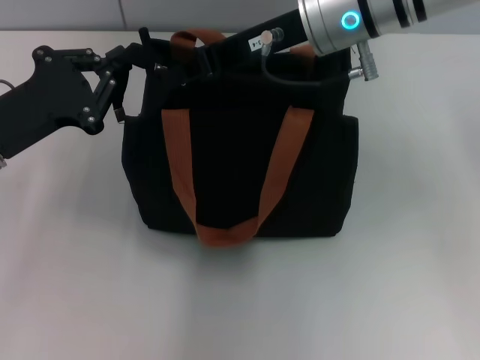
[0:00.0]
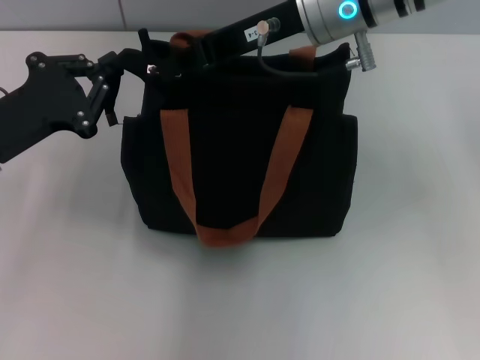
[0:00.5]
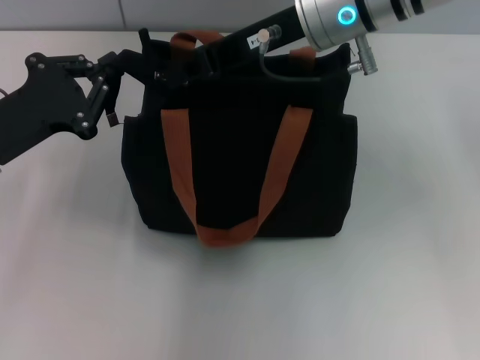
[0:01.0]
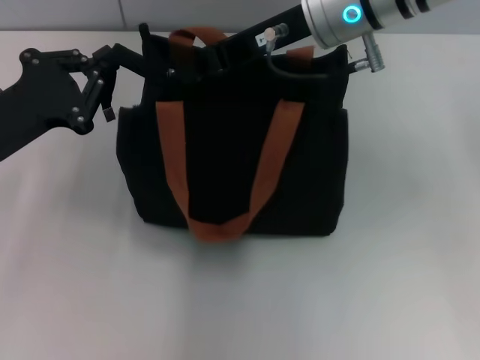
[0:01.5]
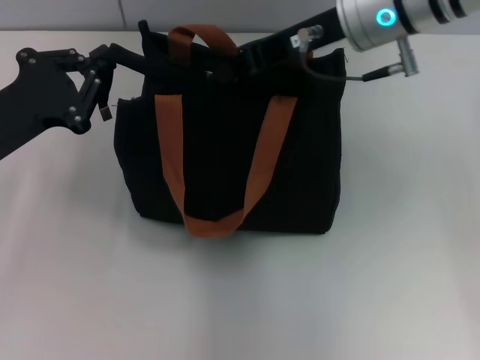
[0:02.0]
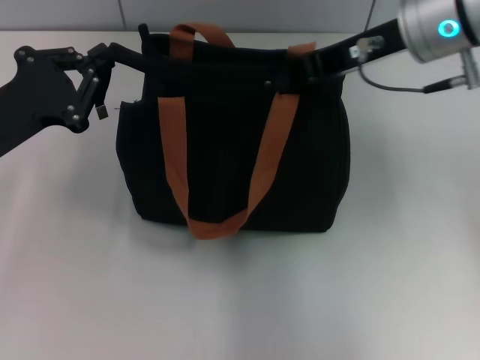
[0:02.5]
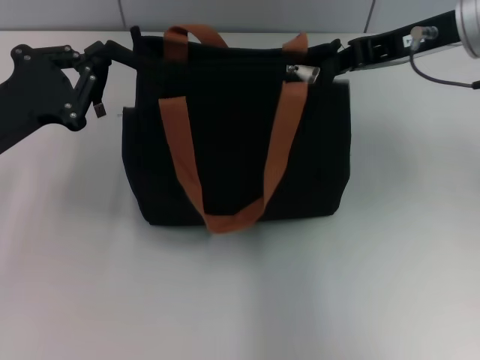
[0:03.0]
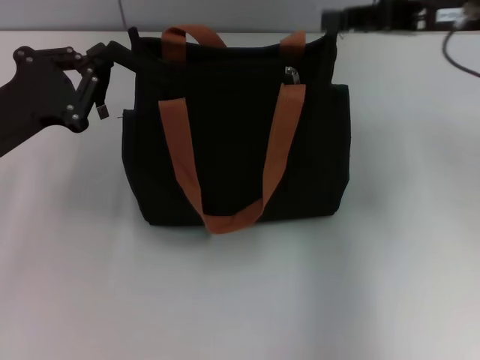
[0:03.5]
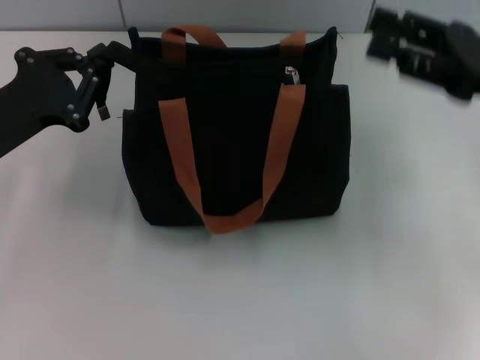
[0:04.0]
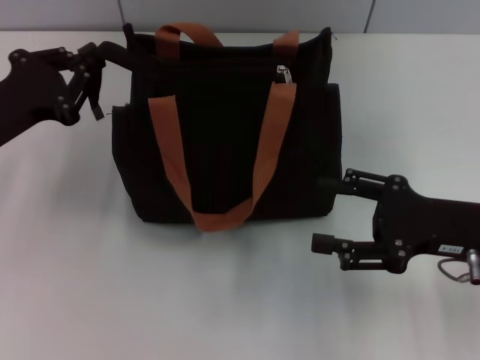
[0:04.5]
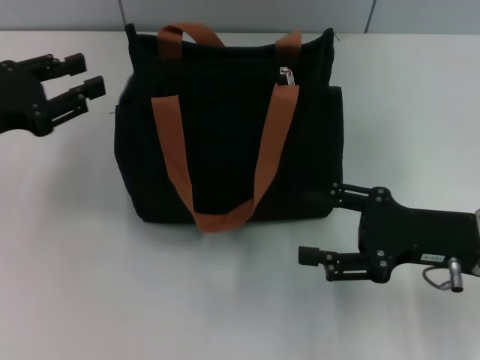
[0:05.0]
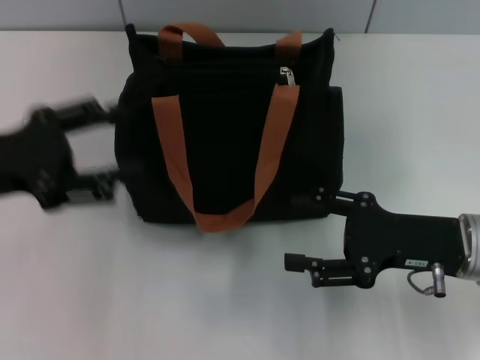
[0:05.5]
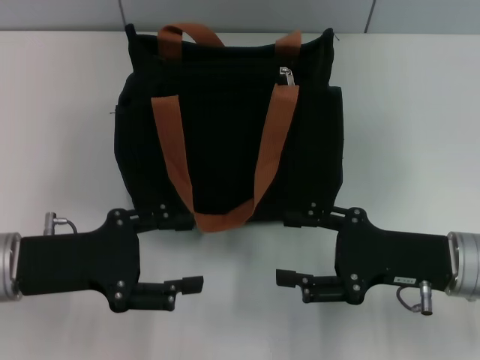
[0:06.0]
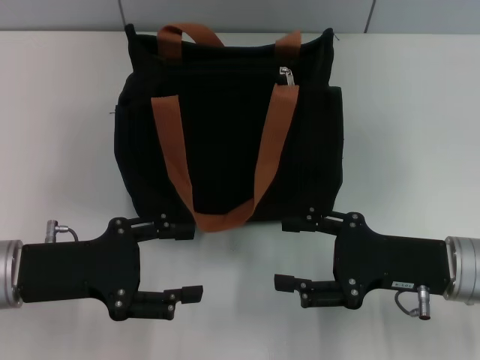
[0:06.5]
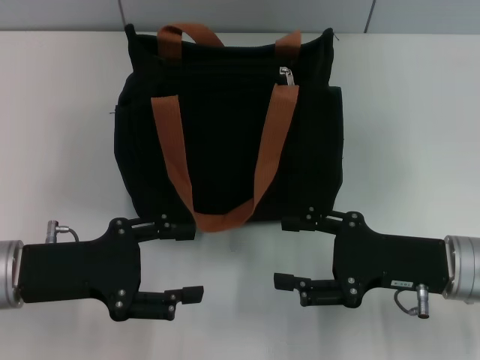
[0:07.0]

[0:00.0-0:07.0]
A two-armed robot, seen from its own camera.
Step, 0:00.0 to 0:02.5: Pull up the zipper with your right hand.
0:00.0 to 0:02.0: The grippers stay close to where they were, moving slightly.
0:02.0 to 0:03.5: The right gripper heads to the right, covering roughly 15 cm.
0:03.5 to 0:05.0: The right gripper shifts roughly 20 cm downward and backward, and opens up.
0:05.0 to 0:07.0: The left gripper goes roughly 10 cm backward, to the right and downward, and opens its fingers.

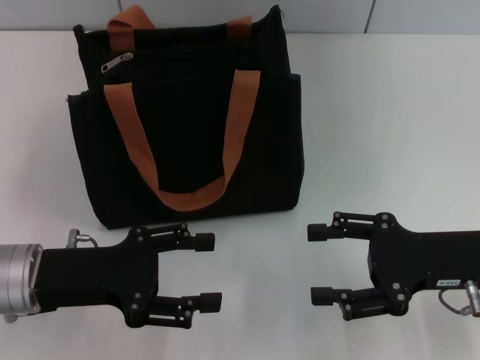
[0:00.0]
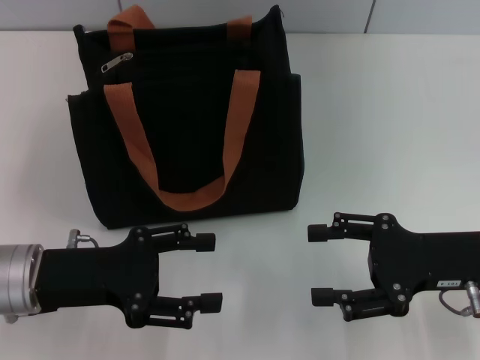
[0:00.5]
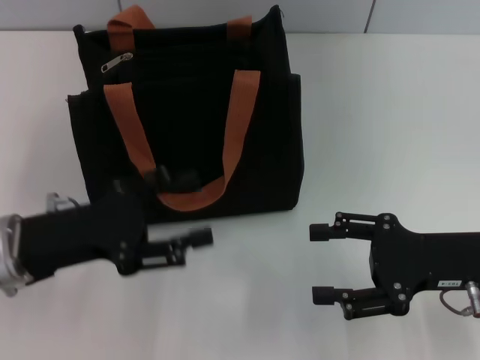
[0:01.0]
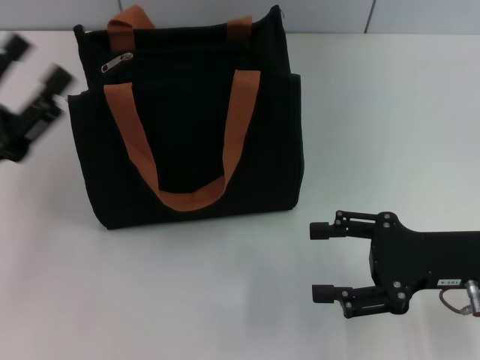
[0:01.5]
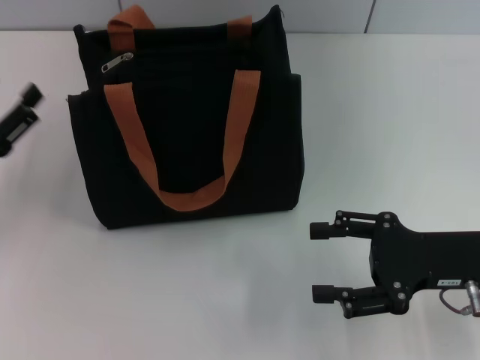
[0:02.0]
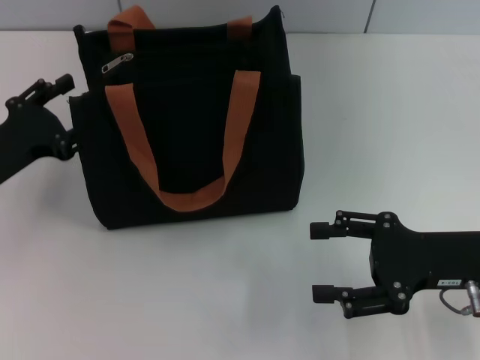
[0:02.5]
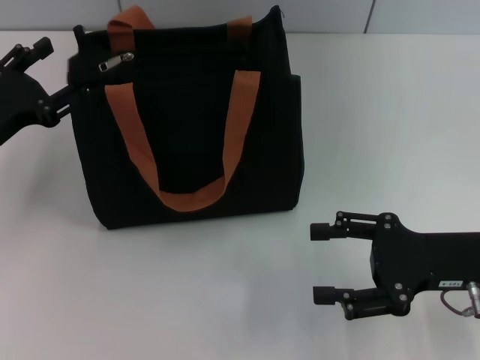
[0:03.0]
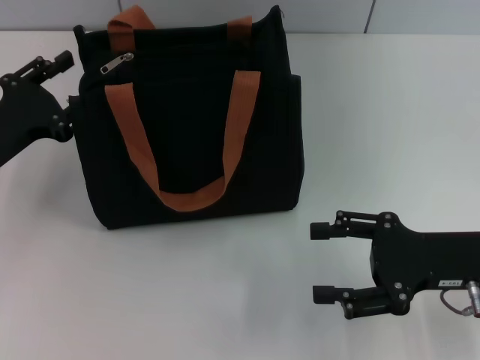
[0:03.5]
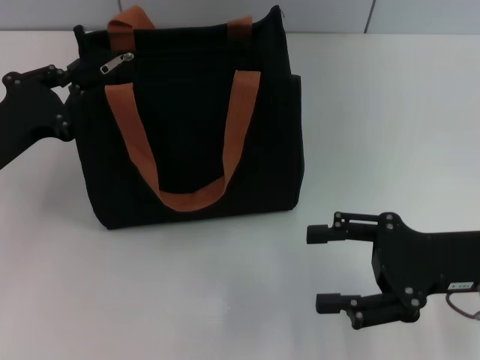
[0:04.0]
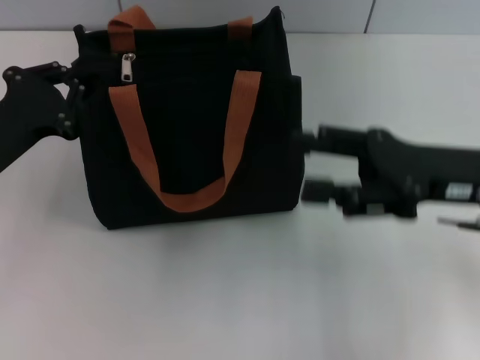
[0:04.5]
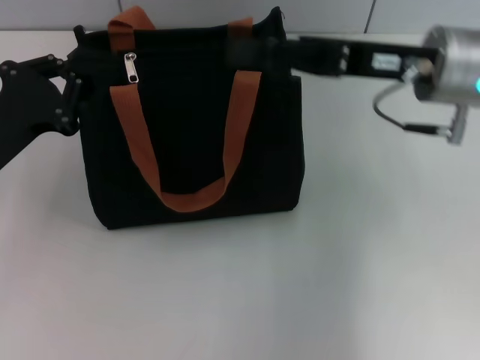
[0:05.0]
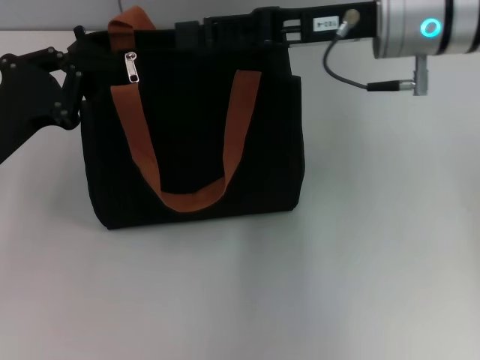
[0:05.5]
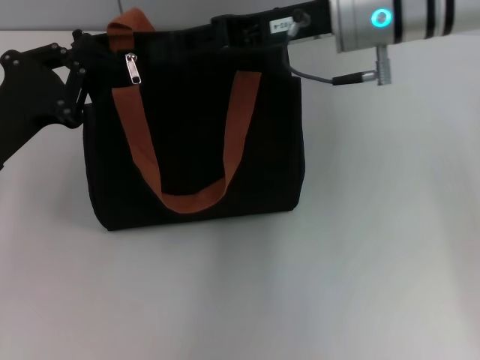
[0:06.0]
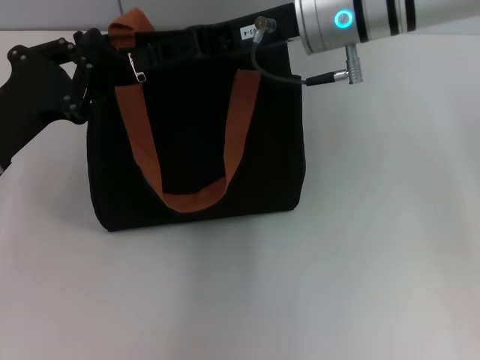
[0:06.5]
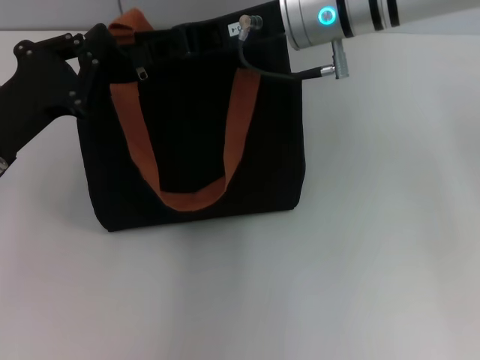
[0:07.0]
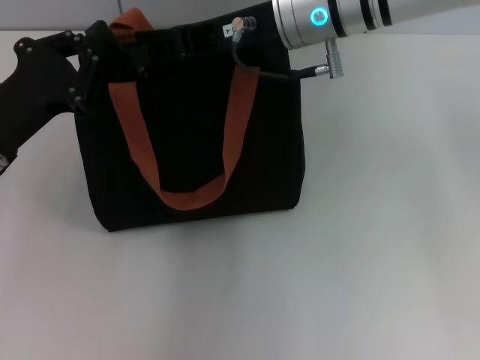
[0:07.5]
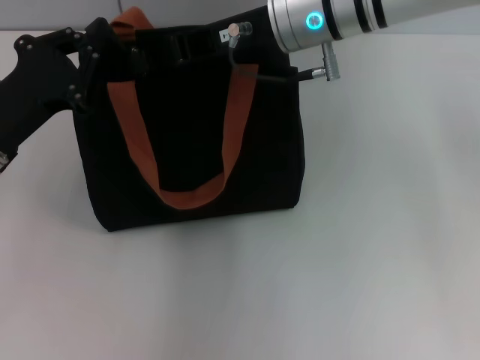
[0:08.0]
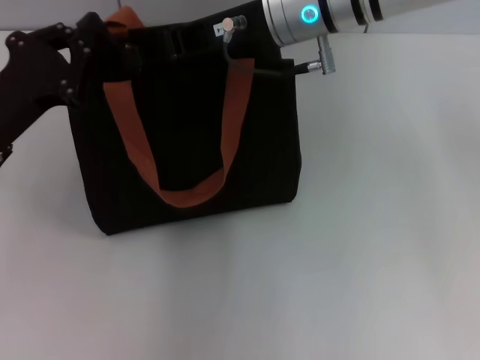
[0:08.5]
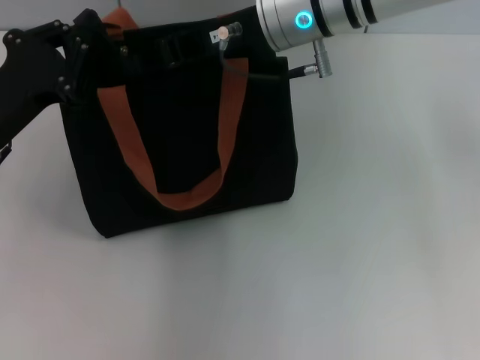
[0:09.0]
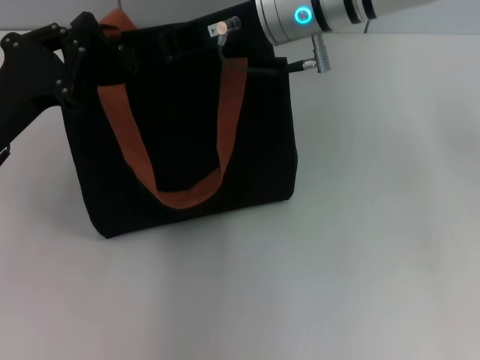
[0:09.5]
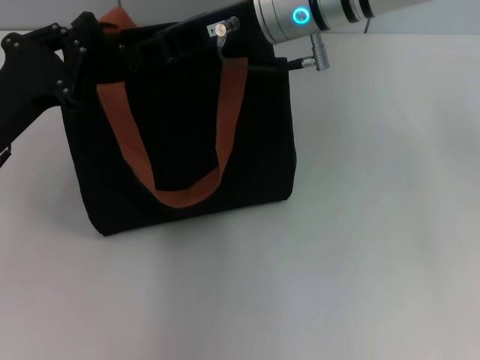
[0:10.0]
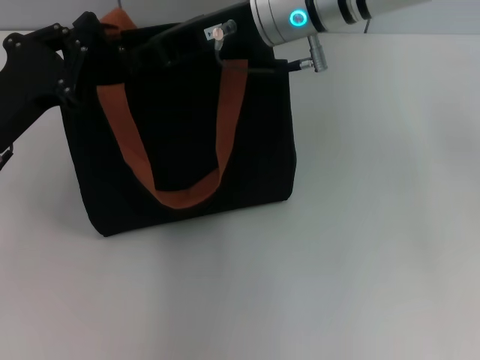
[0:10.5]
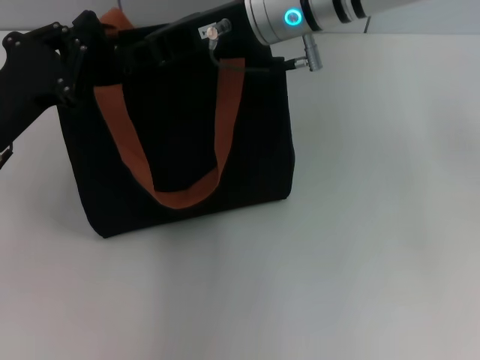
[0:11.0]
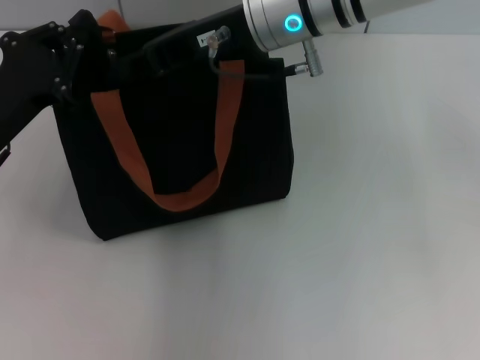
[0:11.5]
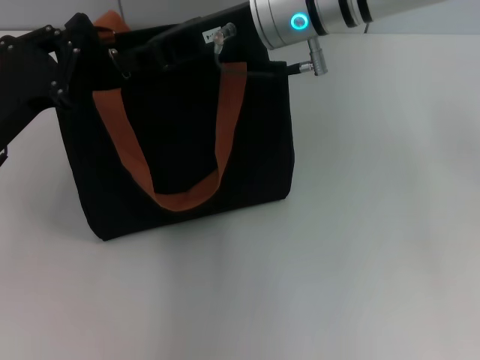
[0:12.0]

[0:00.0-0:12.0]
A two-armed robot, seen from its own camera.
0:00.0 to 0:02.0: The left gripper goes some 10 cm to the left.
0:02.0 to 0:04.0: The left gripper moves roughly 5 cm, and closes.
0:04.0 to 0:06.0: The right gripper moves forward, to the left and upward, some 25 cm.
0:06.0 to 0:10.0: The grippers make only small movements.
0:10.0 to 0:12.0: The two grippers keep their place.

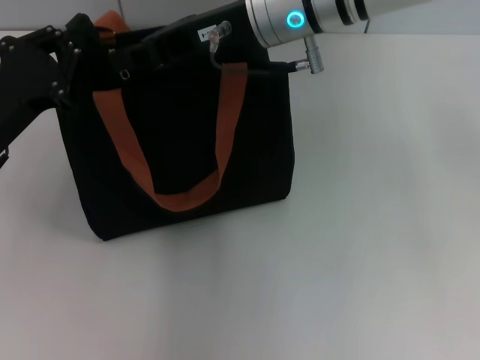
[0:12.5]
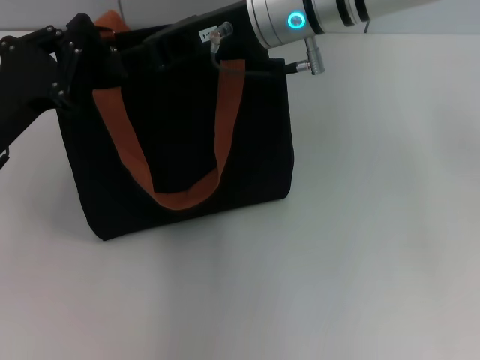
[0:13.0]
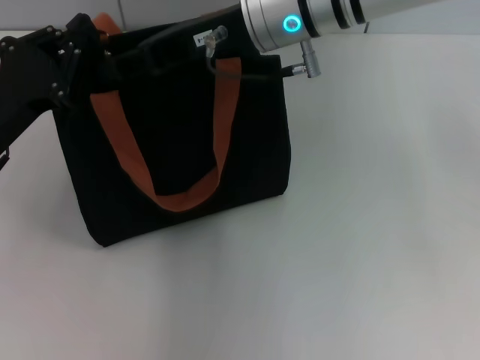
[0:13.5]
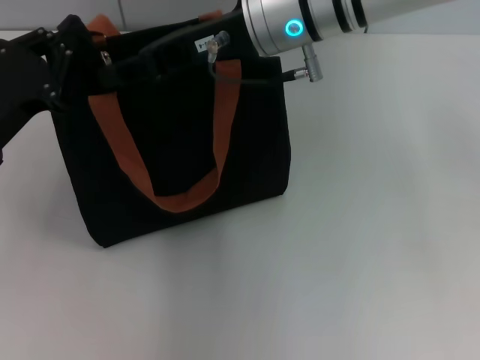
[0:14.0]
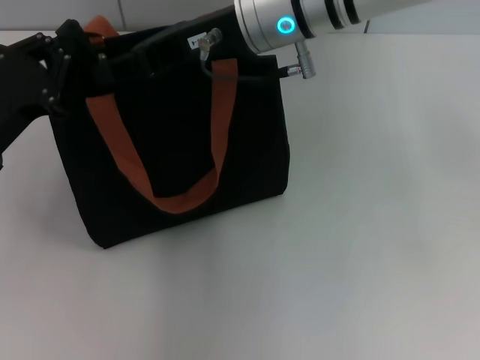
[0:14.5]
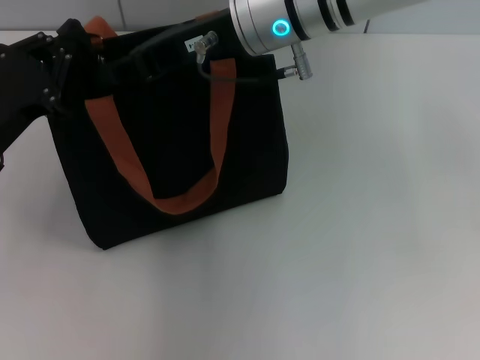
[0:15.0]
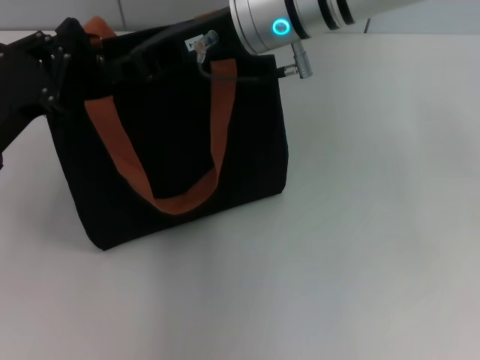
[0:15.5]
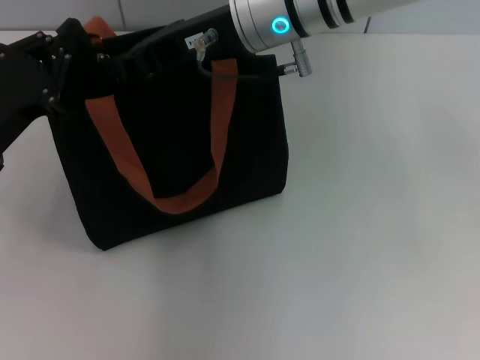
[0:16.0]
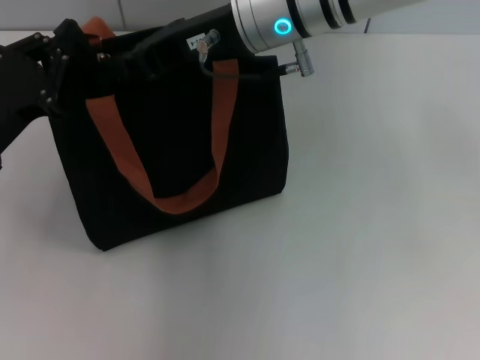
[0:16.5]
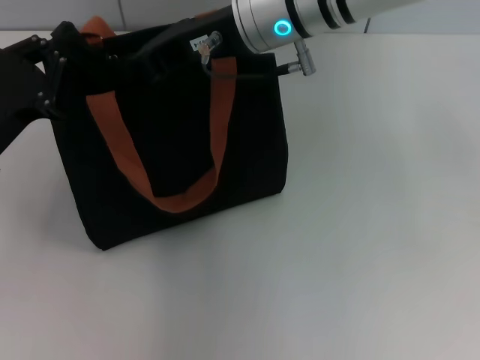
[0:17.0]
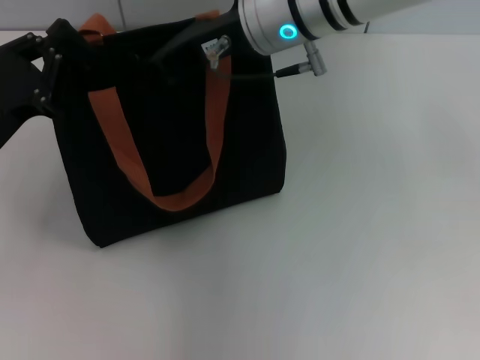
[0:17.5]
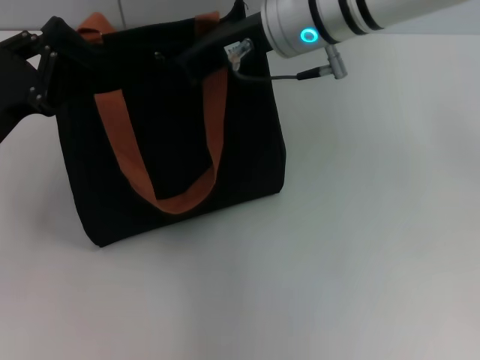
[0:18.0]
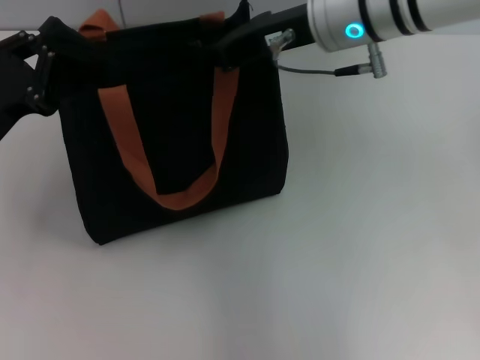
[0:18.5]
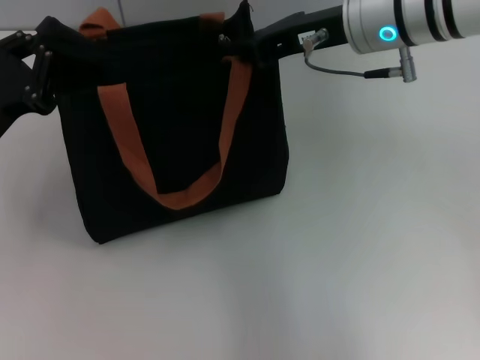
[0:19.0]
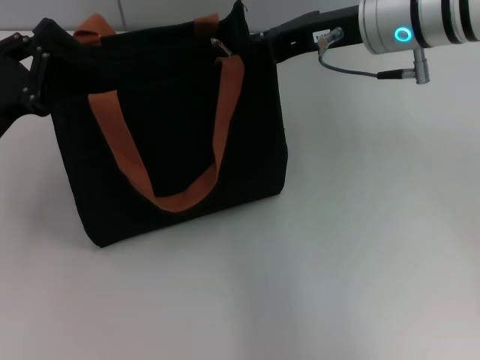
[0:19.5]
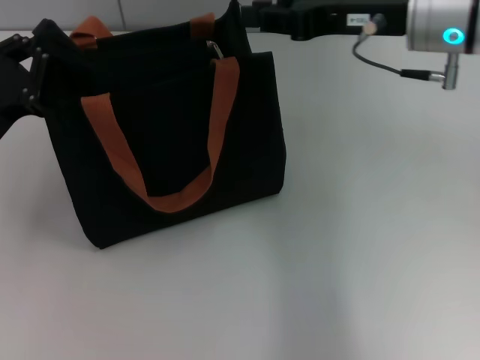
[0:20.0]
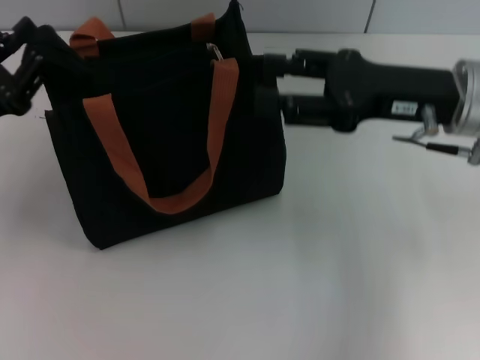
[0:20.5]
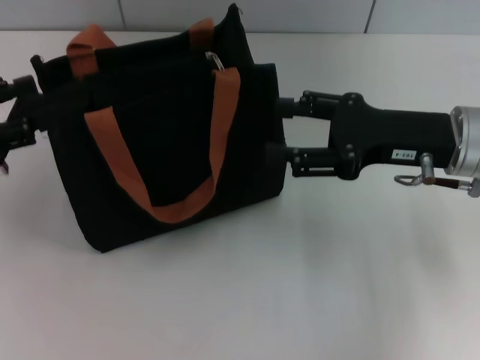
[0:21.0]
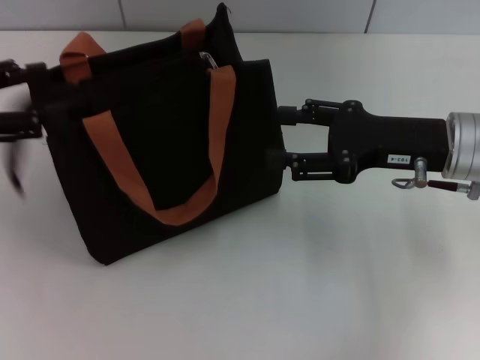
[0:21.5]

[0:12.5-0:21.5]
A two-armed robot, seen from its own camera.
Step, 0:12.5 to 0:19.0: Pull up the zipper with your right hand.
Step, 0:19.5 to 0:21.0: Grab the zipper with your left hand.
0:12.5 to 0:14.5: The two grippers keep their place.
0:14.5 to 0:17.0: The right gripper closes its fingers.
0:17.0 to 0:19.5: The right gripper goes about 10 cm to the right.
0:19.5 to 0:21.5: The left gripper moves upward and to the left, roughly 10 cm, and opens, while the right gripper is displaced downward, to the right and backward by about 15 cm, and opens up.
